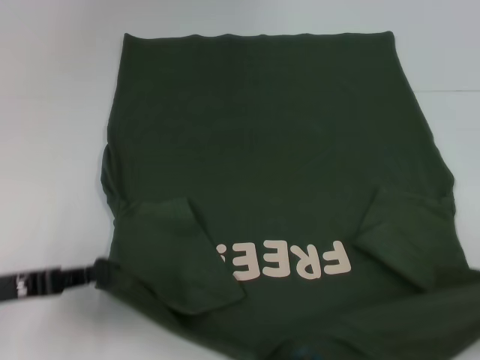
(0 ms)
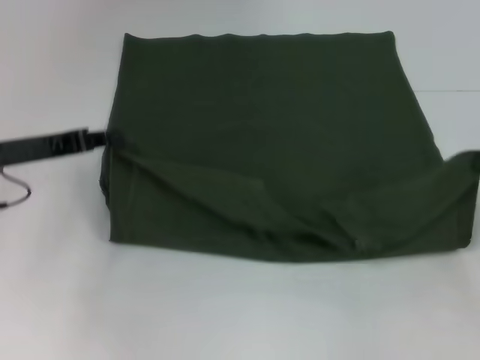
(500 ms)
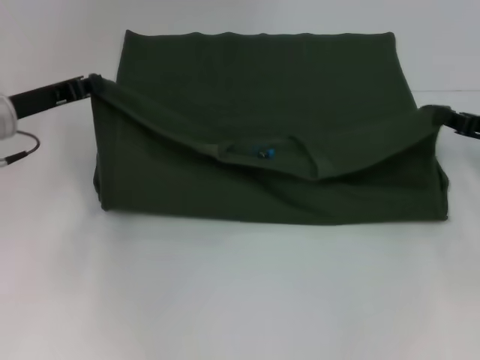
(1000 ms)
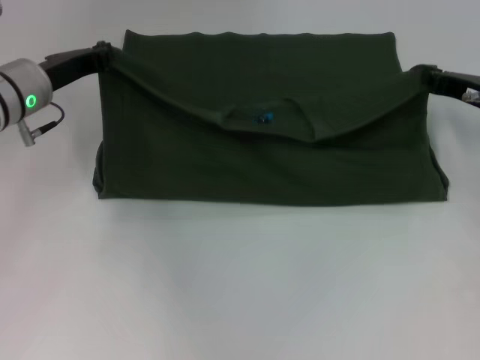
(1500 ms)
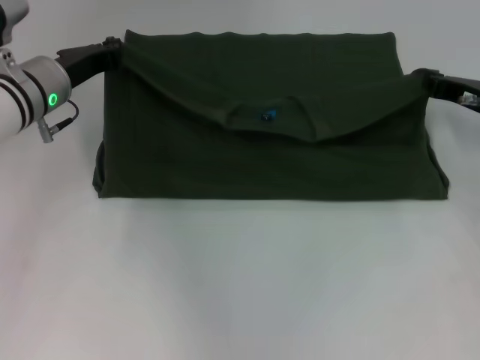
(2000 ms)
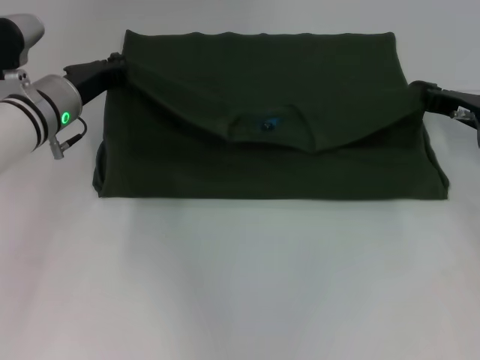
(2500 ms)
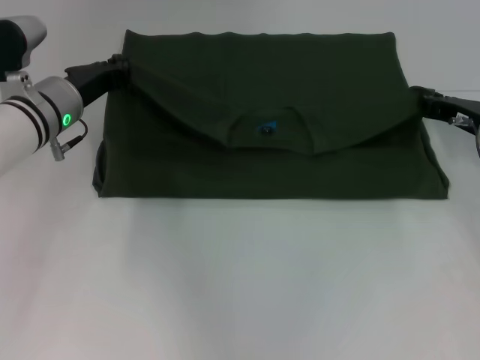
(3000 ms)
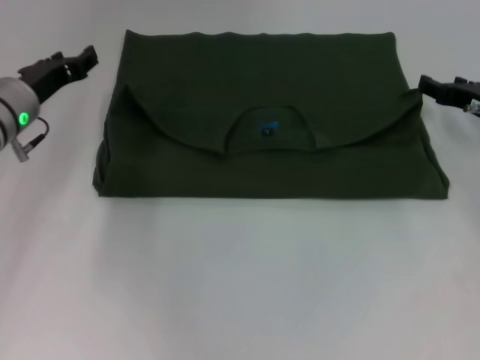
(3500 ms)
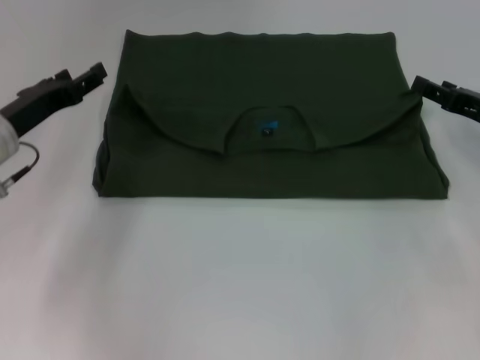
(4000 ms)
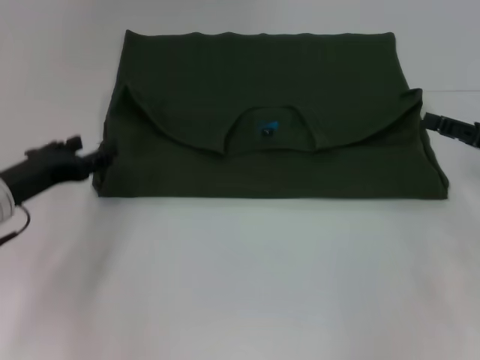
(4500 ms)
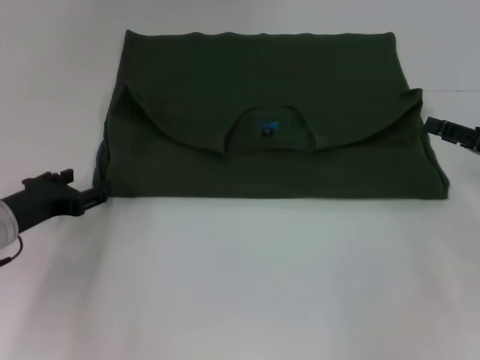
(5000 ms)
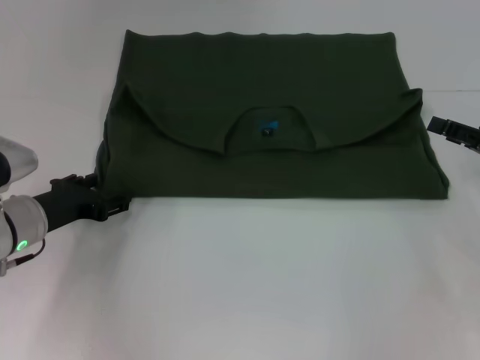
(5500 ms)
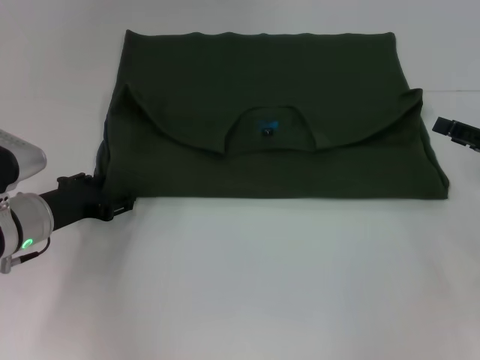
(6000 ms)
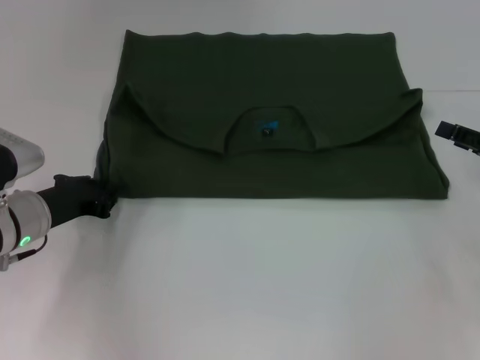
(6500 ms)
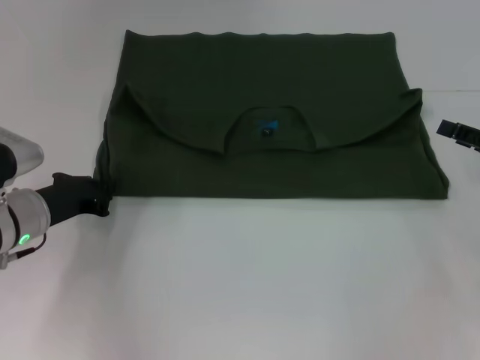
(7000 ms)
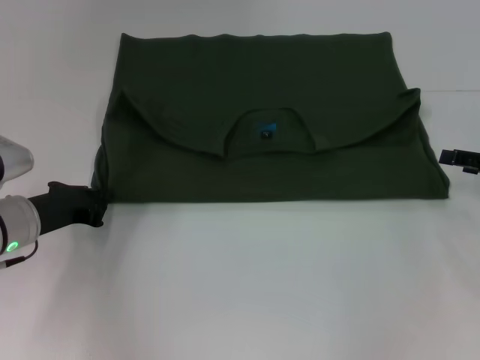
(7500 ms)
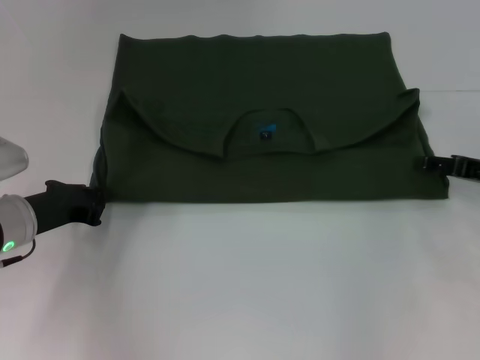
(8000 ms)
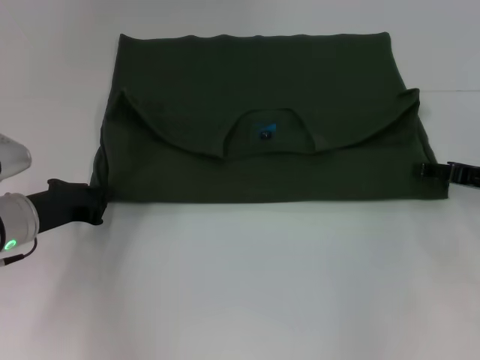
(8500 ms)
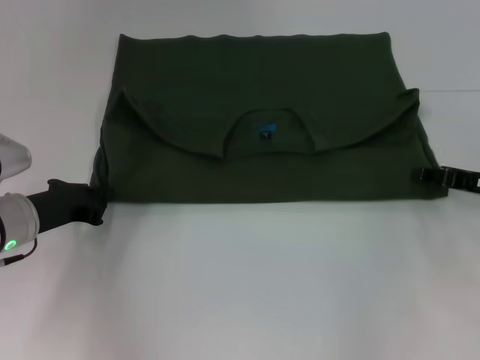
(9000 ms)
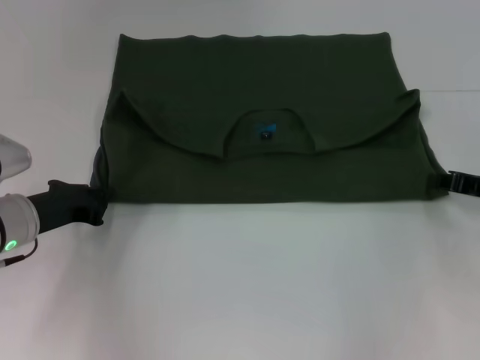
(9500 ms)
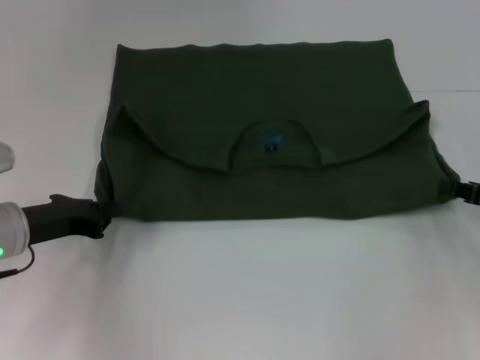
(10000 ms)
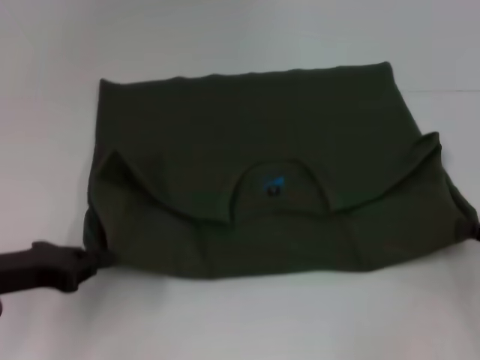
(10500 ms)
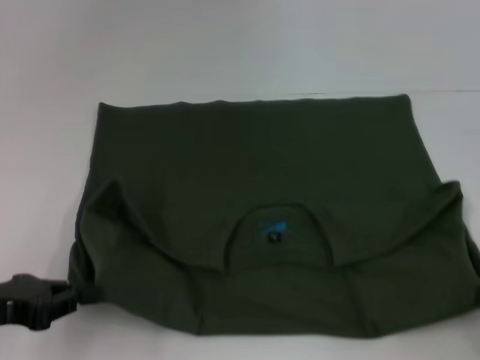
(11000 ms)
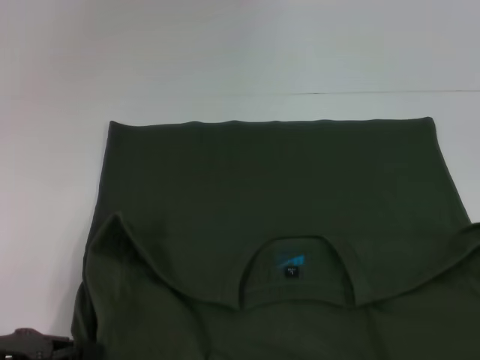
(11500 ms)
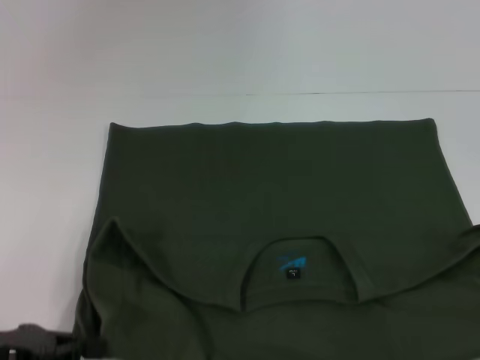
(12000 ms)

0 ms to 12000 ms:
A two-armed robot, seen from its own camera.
Step, 0 ms to 3000 ms: Fold the clothes with your left hand.
Step, 0 ms to 3000 ms: Fold the clothes with your right hand.
Step, 3500 ms to 11000 ms: Pull the clothes with your left hand.
Step, 3500 ms to 11000 ms: Pull the clothes with your right hand.
0 ms to 2000 ms: The right gripper shifts roughly 25 cm forward and to the left, while the left gripper is displaced forward and to the right by about 20 cm.
2000 ms to 4000 ms: The left gripper shifts some 5 cm backward, and opens, while the right gripper opens.
4000 ms to 6000 ms: The right gripper shifts by about 5 cm. Meanwhile the left gripper heads downward, covering some 5 cm.
6000 ms to 8000 ms: The left gripper closes.
8000 ms to 10000 ms: The right gripper closes its fingers.
10000 ms to 12000 ms: The right gripper travels backward by about 20 cm; the left gripper heads backward, covering about 10 cm.

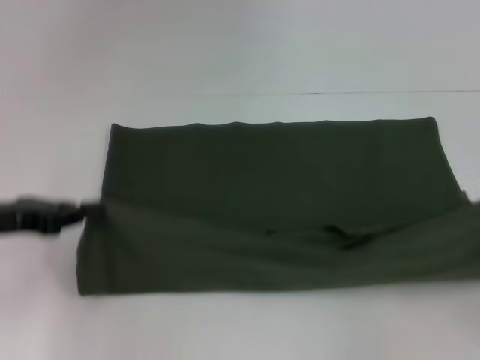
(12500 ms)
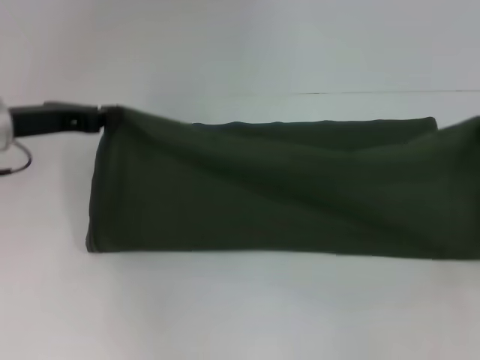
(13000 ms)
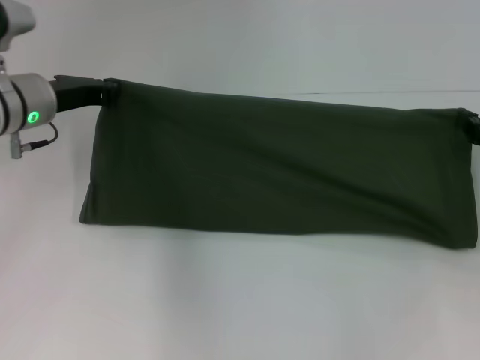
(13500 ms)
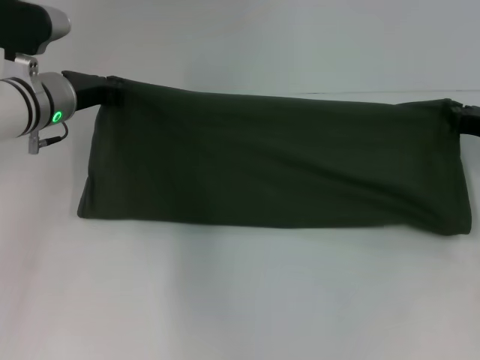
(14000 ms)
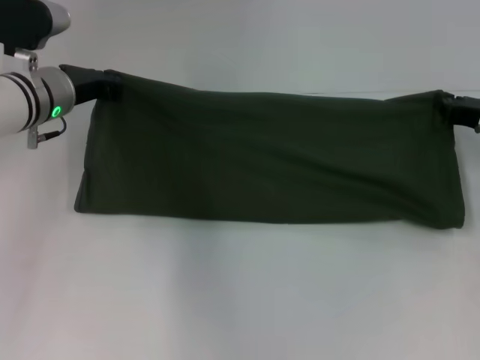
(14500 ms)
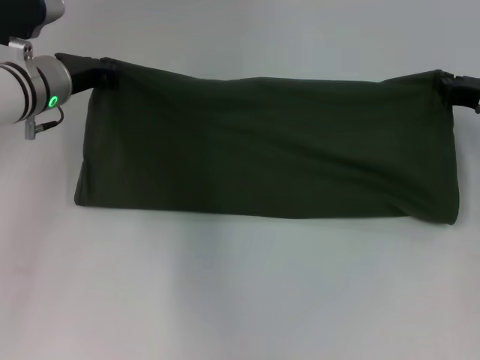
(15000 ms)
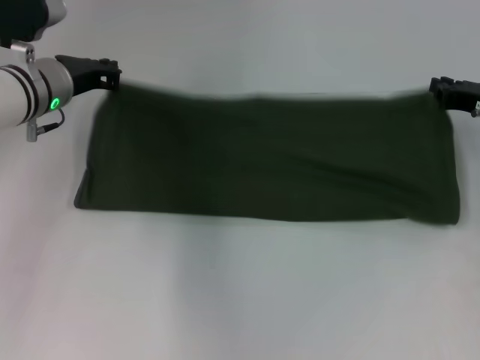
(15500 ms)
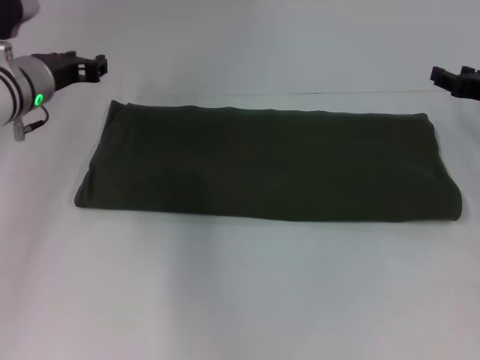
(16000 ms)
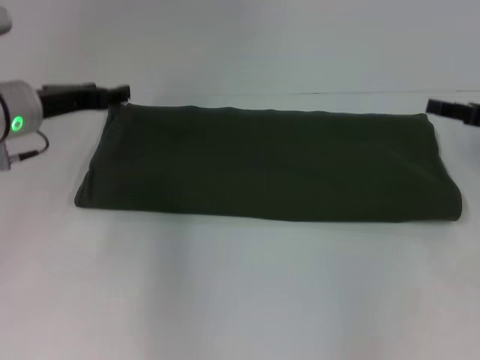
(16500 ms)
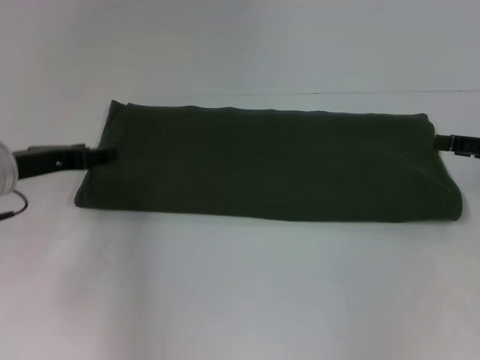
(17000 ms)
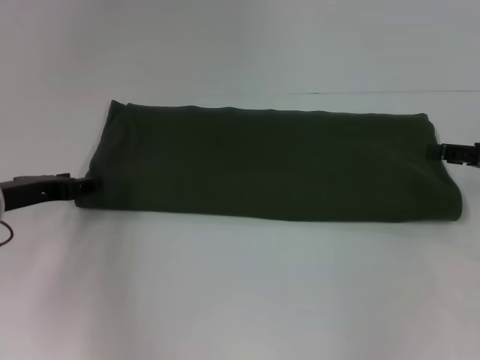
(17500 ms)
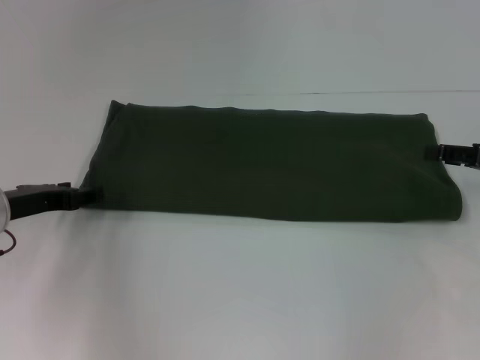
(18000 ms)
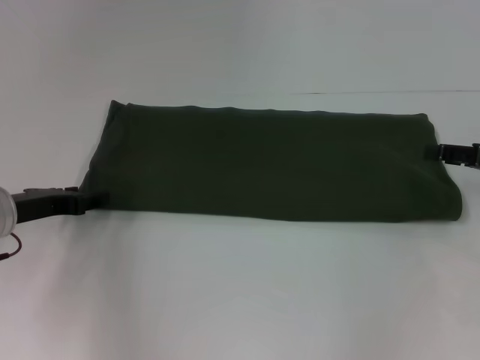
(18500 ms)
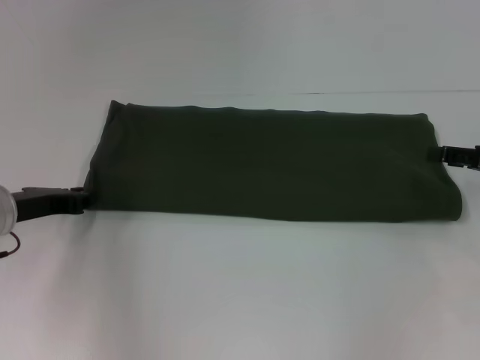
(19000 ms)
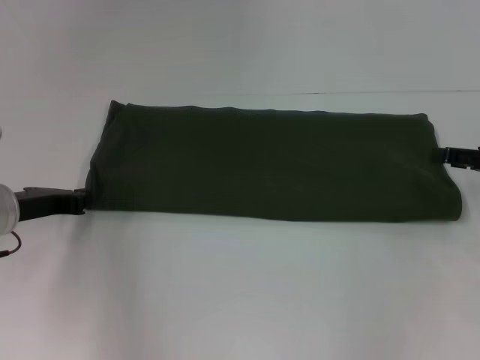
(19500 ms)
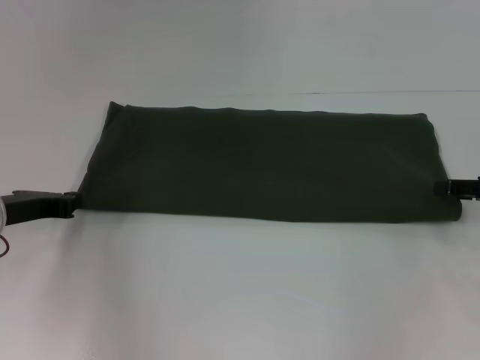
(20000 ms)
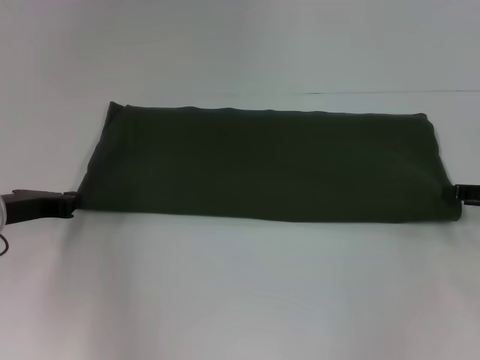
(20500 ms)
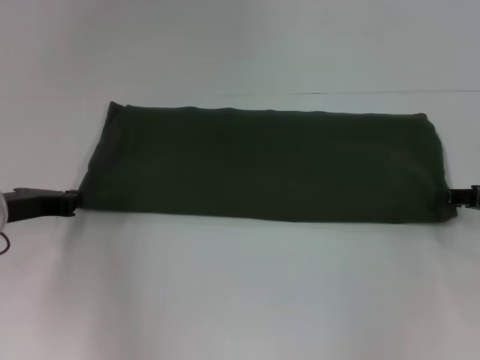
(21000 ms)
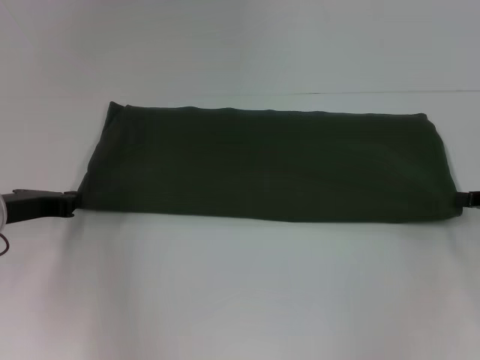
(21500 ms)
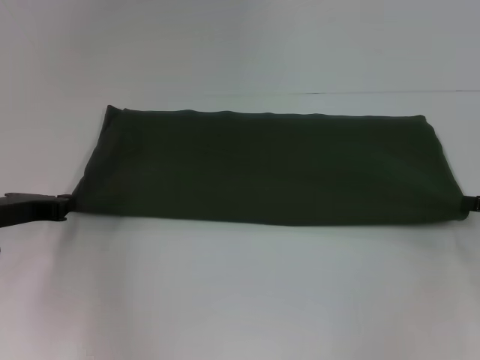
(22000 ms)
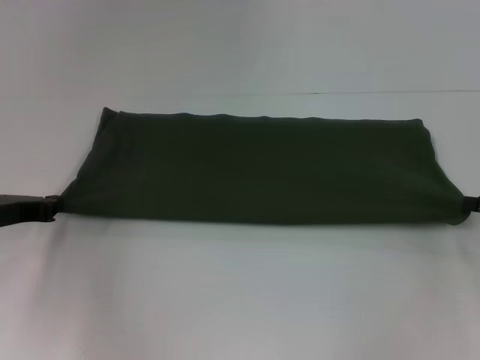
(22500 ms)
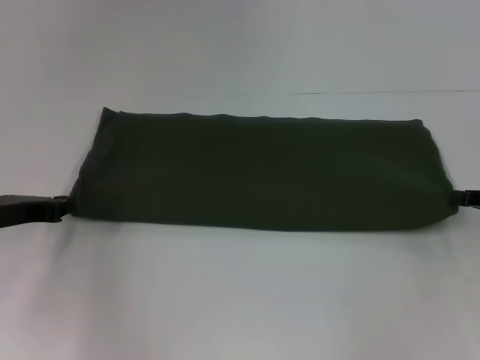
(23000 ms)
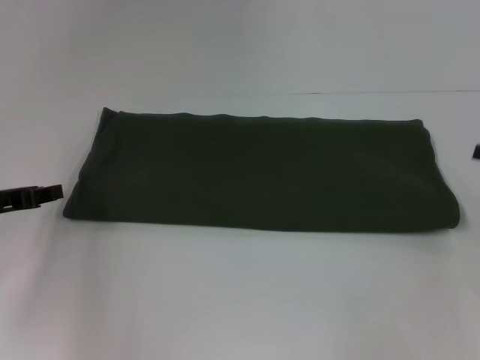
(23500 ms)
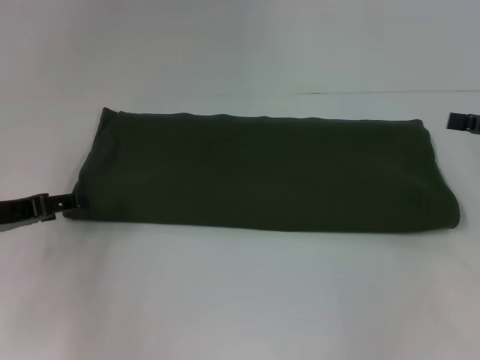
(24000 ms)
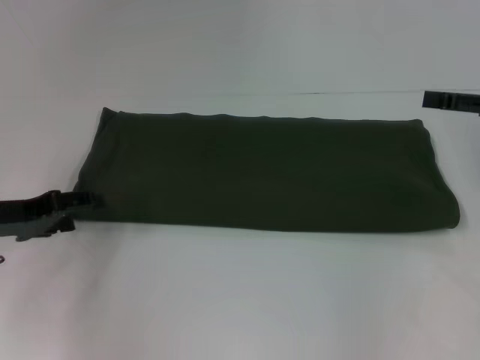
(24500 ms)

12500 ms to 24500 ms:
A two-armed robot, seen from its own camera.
Step, 12500 ms to 15500 ms: Fold the clothes with your right hand.
12500 ms to 14500 ms: The left gripper heads forward and to the right, covering about 20 cm; the right gripper moves forward and to the left, approximately 20 cm.
14500 ms to 16500 ms: The left gripper opens, while the right gripper shifts by roughly 5 cm, and opens up.
16500 ms to 18500 ms: The left gripper is displaced backward and downward by about 10 cm.
18500 ms to 20500 ms: The left gripper closes.
20500 ms to 22500 ms: The right gripper closes its fingers.
22500 ms to 24500 ms: The left gripper opens. Meanwhile the right gripper is displaced upward by some 10 cm, and opens its fingers.

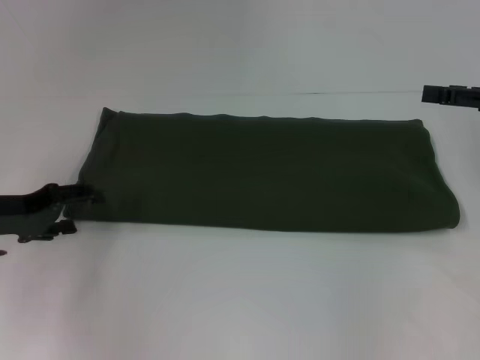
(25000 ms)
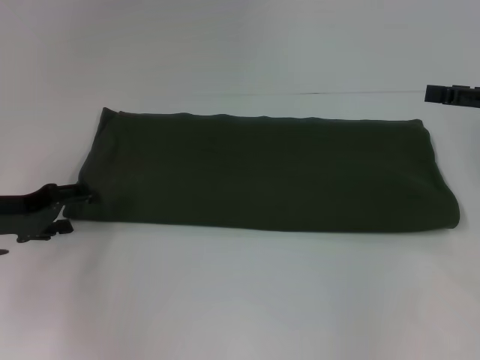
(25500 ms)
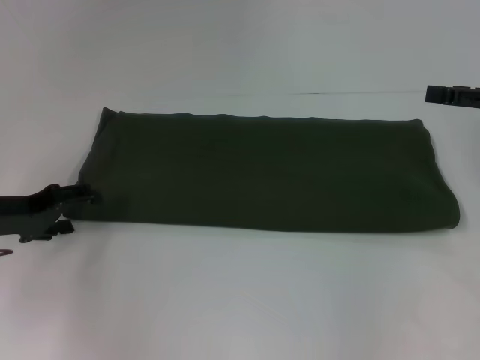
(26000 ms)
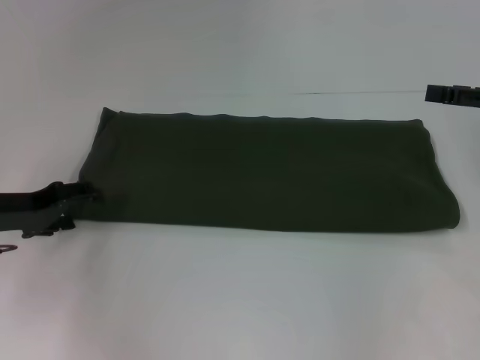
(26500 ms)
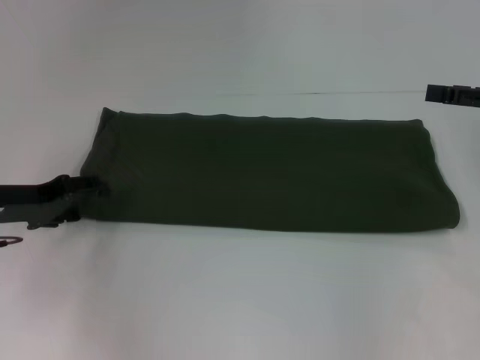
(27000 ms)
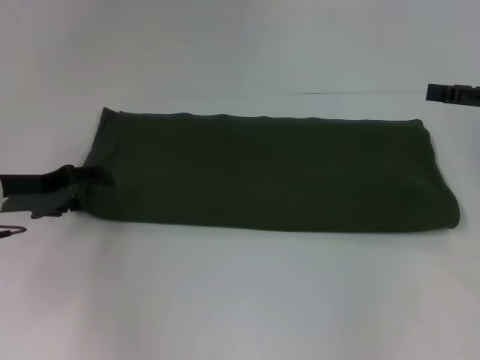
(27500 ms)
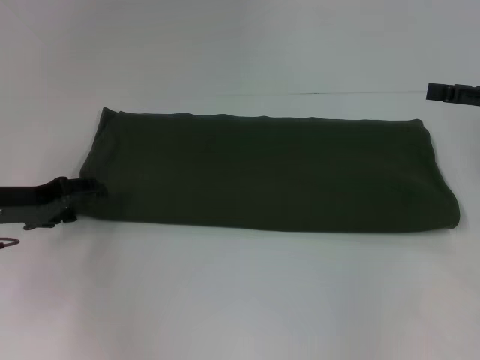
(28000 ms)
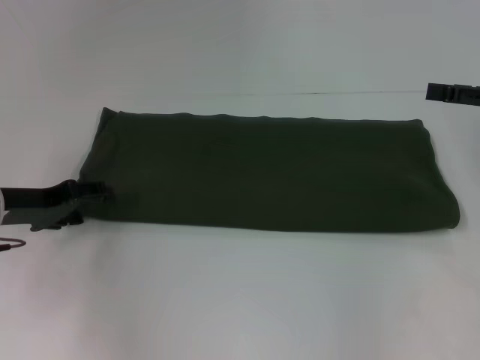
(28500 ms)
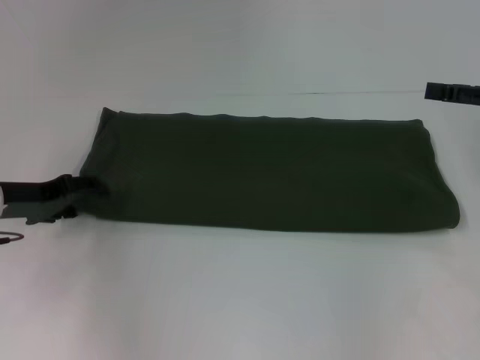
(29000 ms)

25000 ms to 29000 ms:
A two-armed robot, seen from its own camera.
25000 ms to 27000 ms: The grippers make only small movements.
27000 ms to 29000 ms: Both grippers stay put.
